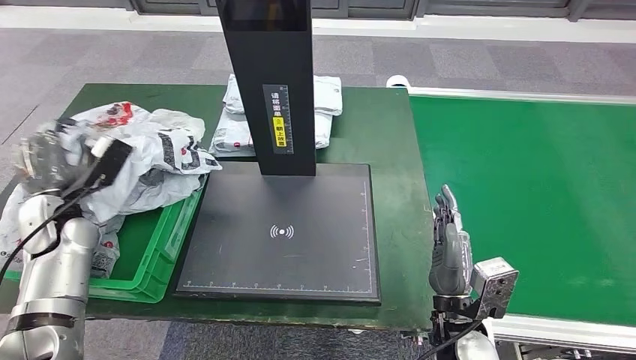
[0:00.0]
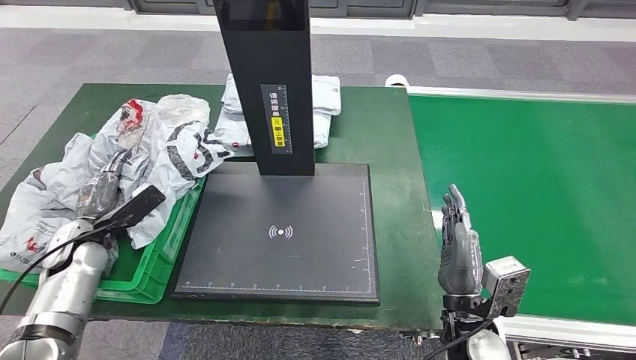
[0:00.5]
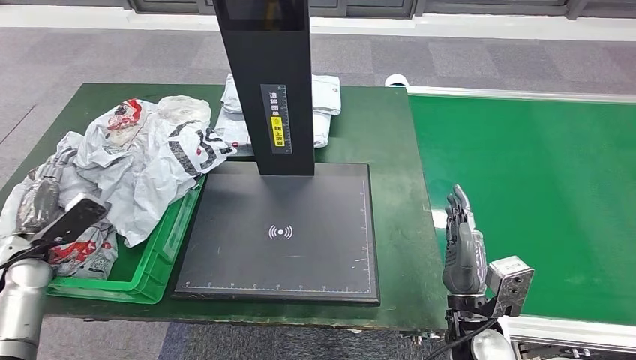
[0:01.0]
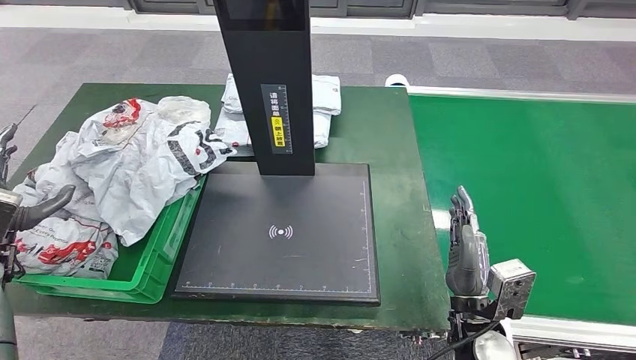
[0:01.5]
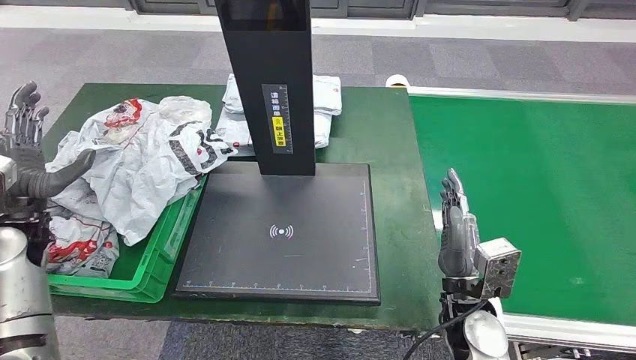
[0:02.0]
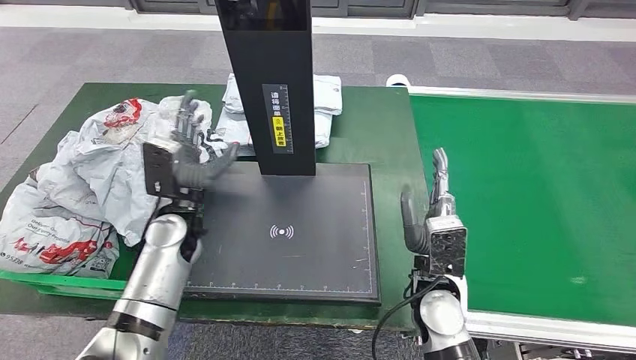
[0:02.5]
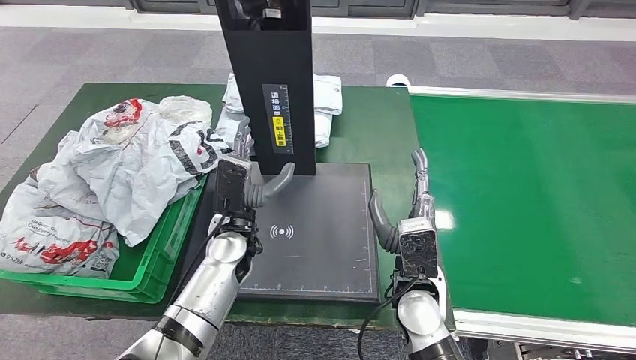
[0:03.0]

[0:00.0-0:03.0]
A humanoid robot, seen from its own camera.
Step, 0:00.0 to 0:03.0: Place the parcel into the delivery box.
0:01.5 to 0:03.0: The right hand goes roughly 10 cm to the left and forward. Meanwhile the left hand goes some 40 cm to the right.
